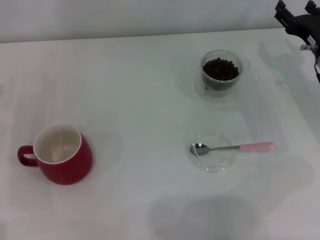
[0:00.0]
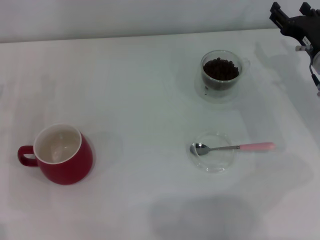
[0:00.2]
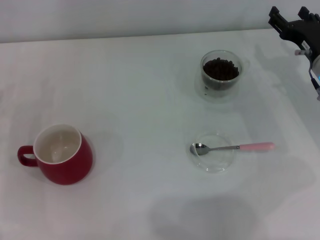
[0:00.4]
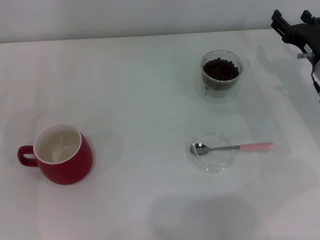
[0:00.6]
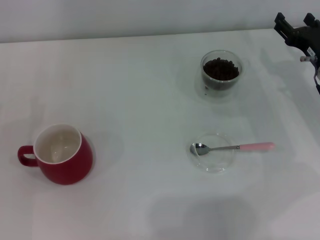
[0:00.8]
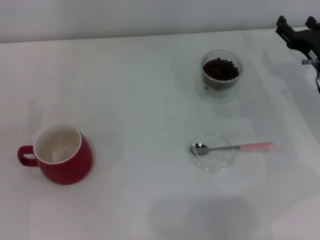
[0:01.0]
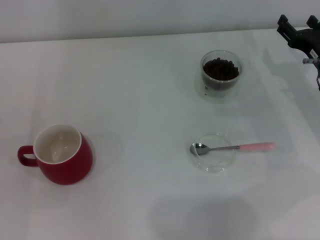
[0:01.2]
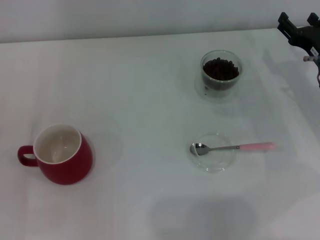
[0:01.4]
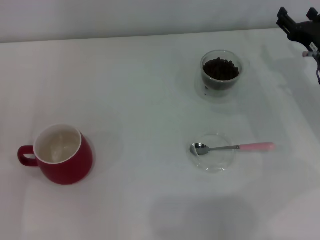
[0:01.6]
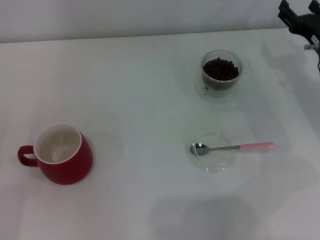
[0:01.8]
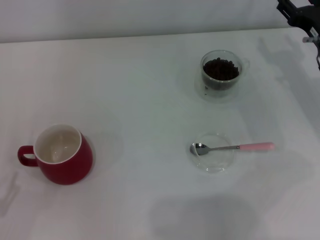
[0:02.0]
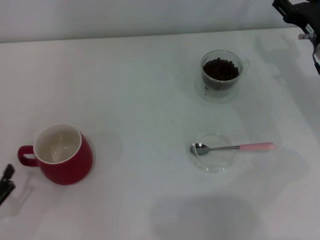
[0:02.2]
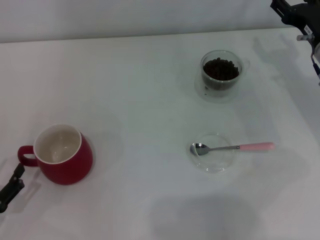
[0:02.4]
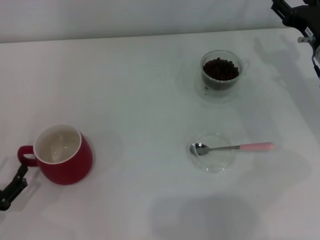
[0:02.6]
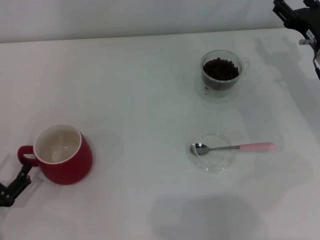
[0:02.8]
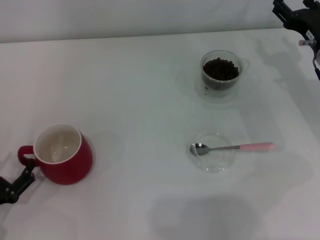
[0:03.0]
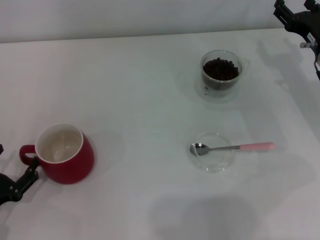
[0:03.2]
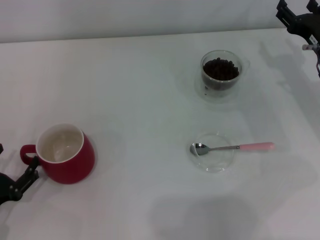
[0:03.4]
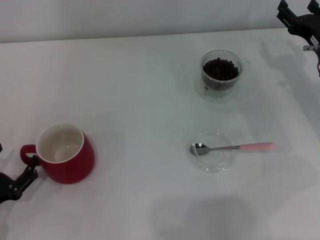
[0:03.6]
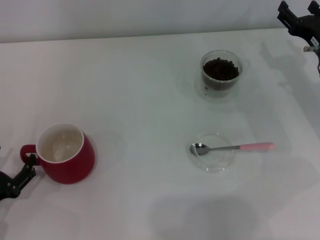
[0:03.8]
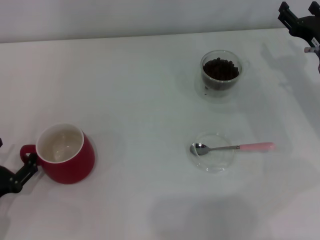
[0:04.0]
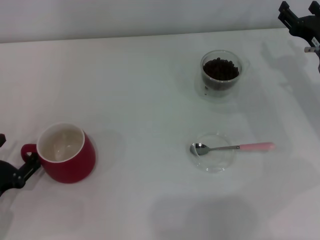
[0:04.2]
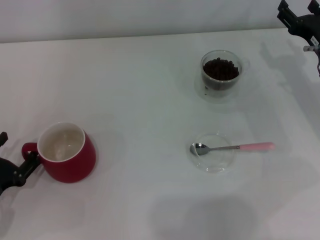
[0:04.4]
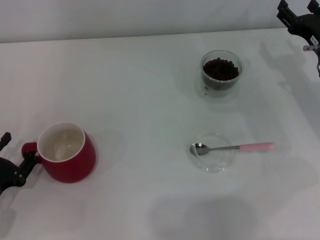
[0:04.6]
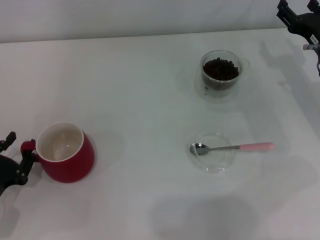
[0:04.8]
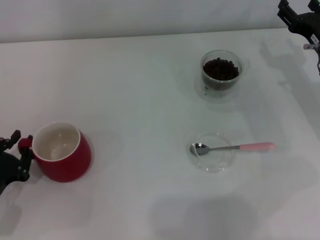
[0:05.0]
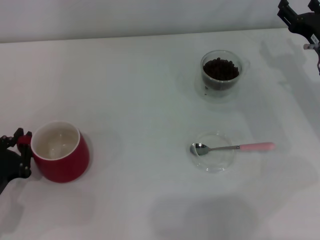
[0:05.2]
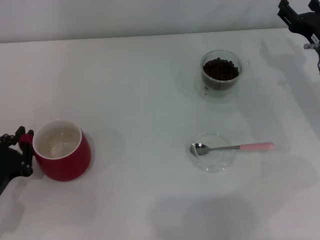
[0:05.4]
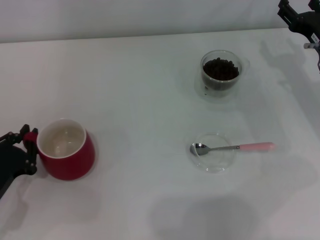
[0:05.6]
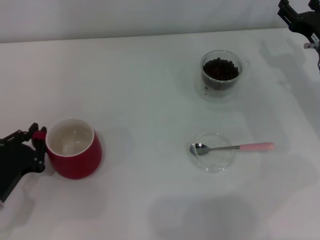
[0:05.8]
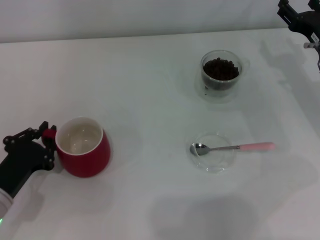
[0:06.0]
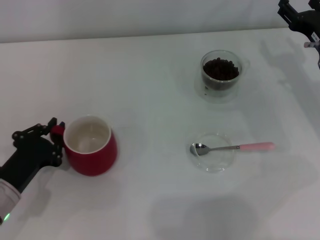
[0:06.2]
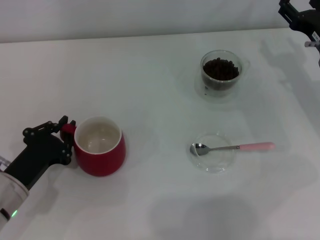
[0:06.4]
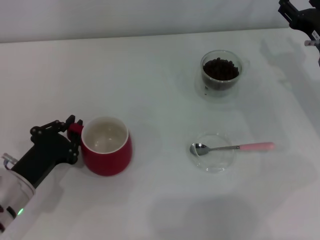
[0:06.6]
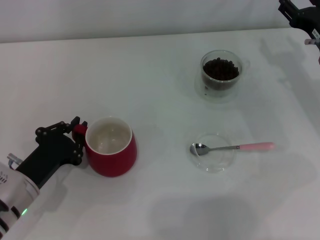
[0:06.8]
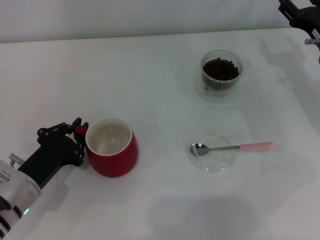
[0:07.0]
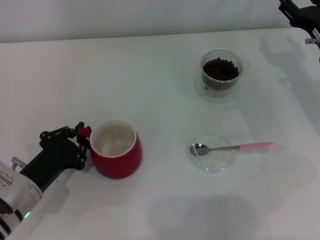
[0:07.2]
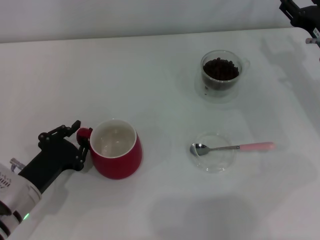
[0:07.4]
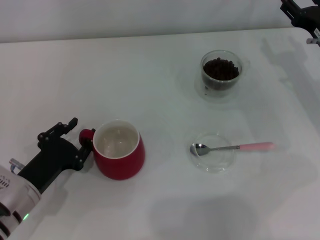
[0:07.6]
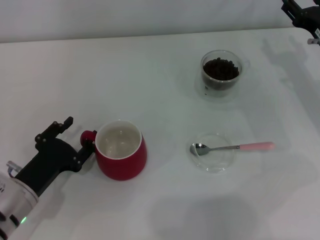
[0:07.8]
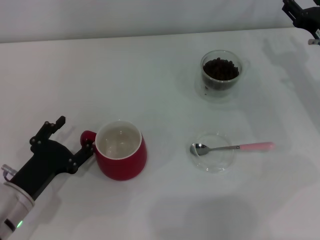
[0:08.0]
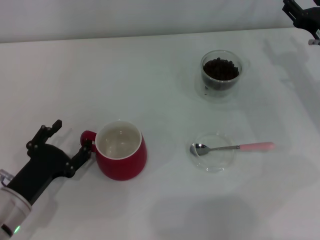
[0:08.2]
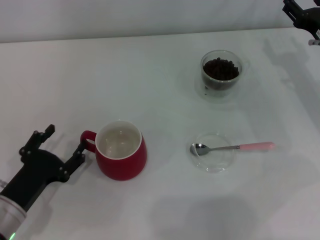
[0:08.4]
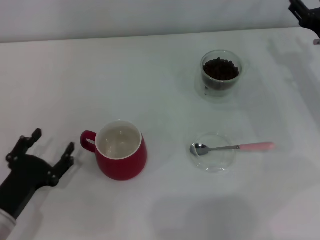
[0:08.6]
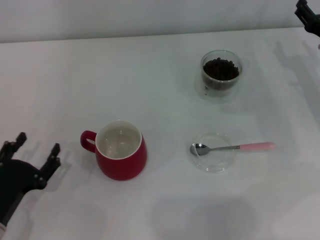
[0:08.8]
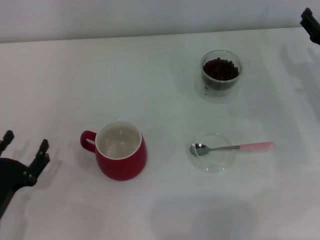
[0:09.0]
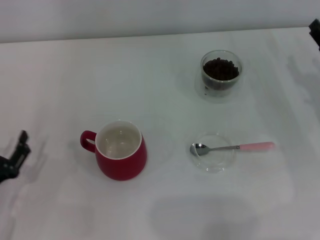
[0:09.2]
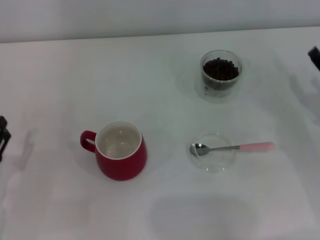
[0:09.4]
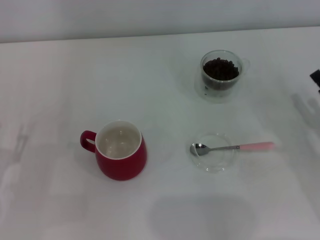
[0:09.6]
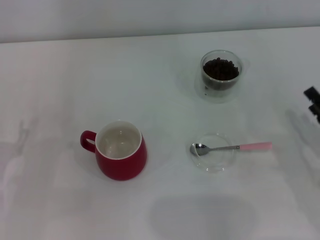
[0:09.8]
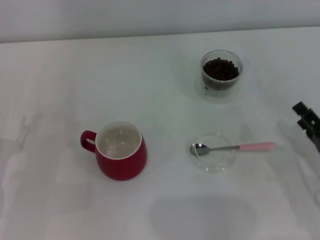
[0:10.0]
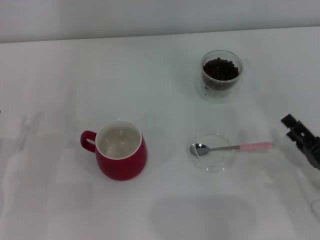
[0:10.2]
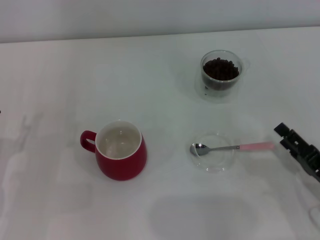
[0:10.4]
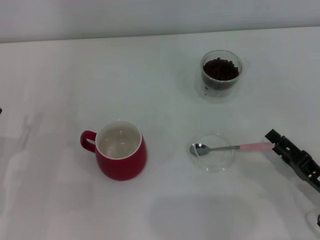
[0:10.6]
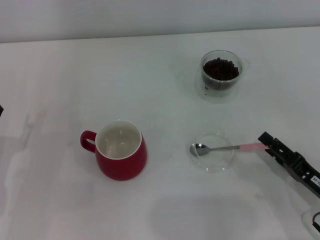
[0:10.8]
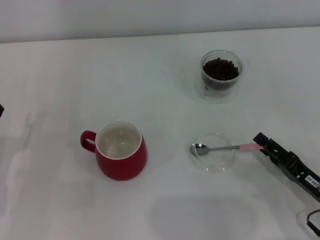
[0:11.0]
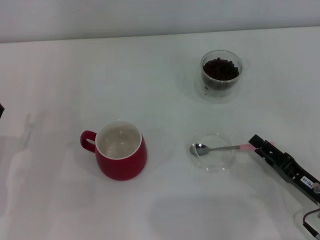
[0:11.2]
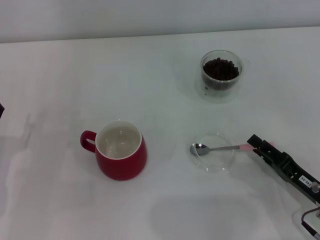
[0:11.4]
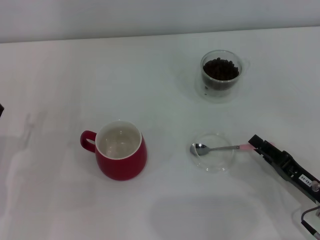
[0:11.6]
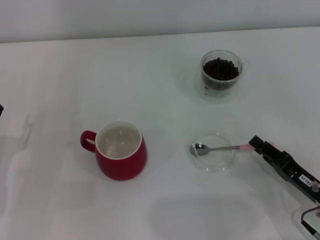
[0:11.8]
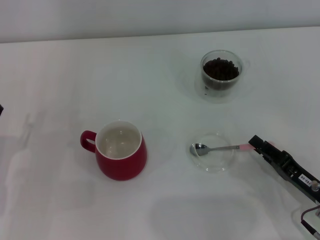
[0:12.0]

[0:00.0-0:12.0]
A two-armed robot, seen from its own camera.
Task of the whole recording: Use a pink spoon to take out the coffee beans from the glass and pour them into the red cup.
Step, 0:00.0 to 0:08.6: Move the cup to the center of view with the left gripper.
0:03.0 to 0:04.4: The grippers move only a little.
0:04.4 to 0:06.0: The left gripper closes.
0:06.0 to 0:07.6: The grippers move only a little.
0:07.6 to 0:09.0: The left gripper moves backward, some 5 cm, and opens its fingers.
0:09.0 to 0:10.4: The right gripper is displaced backward by some 20 cm. Meanwhile the left gripper moves approximately 5 cm.
0:10.4 to 0:12.0: The right gripper closes its fingers.

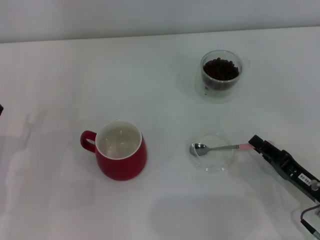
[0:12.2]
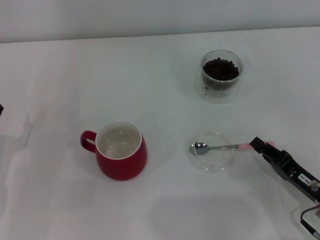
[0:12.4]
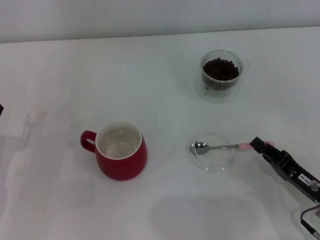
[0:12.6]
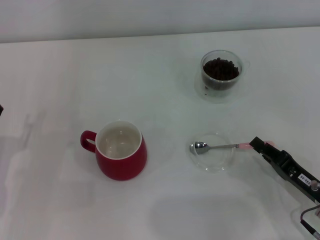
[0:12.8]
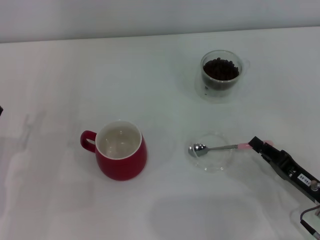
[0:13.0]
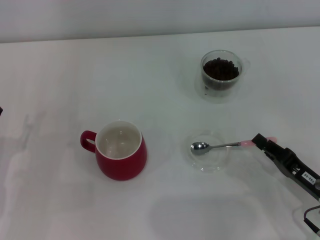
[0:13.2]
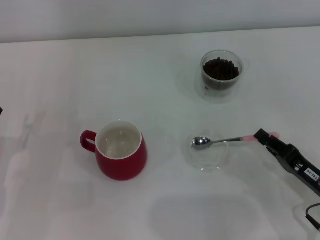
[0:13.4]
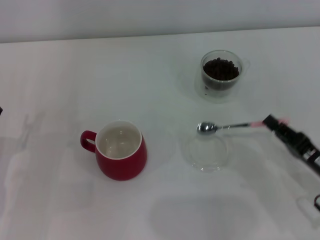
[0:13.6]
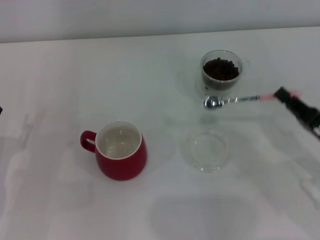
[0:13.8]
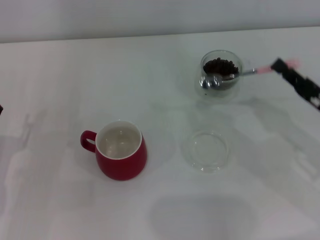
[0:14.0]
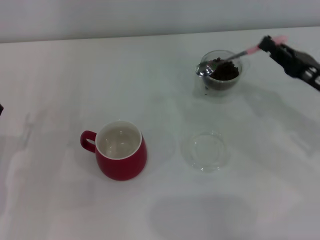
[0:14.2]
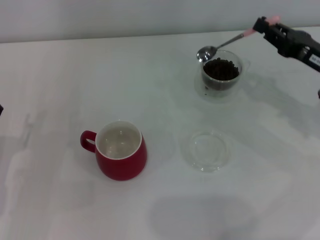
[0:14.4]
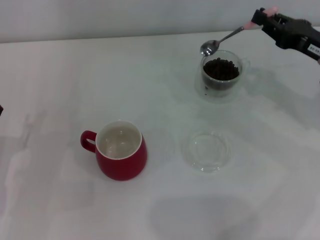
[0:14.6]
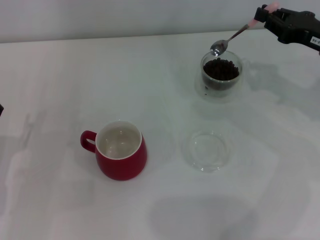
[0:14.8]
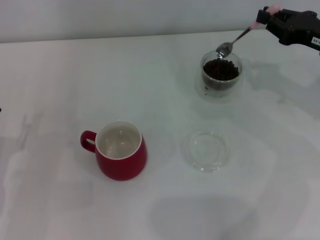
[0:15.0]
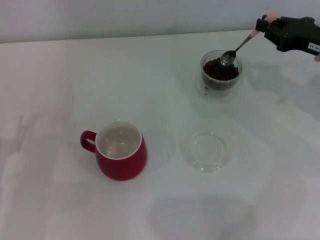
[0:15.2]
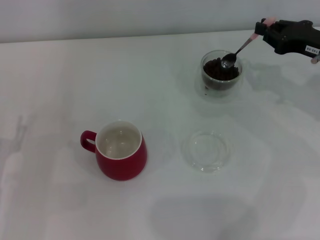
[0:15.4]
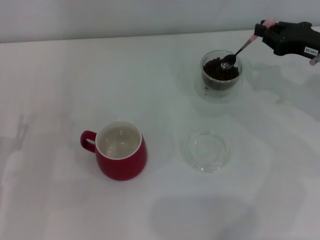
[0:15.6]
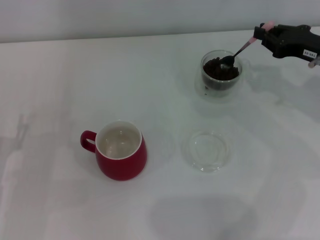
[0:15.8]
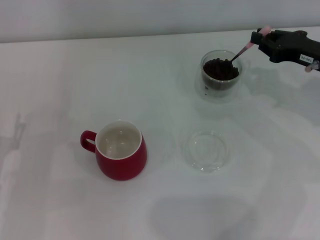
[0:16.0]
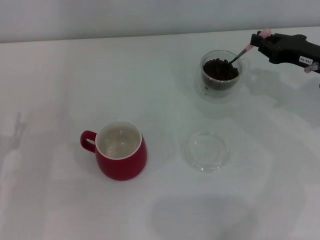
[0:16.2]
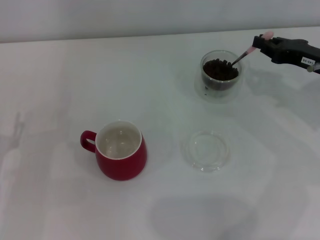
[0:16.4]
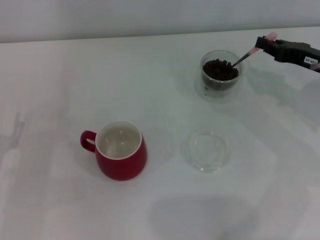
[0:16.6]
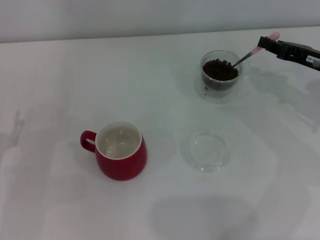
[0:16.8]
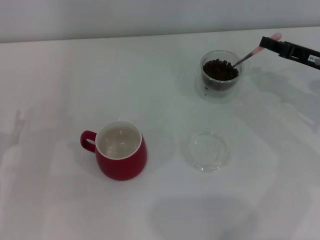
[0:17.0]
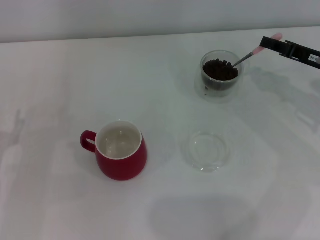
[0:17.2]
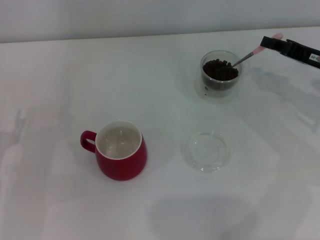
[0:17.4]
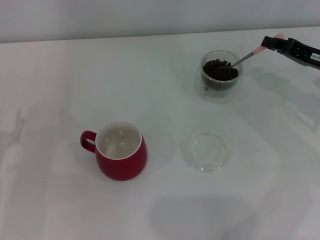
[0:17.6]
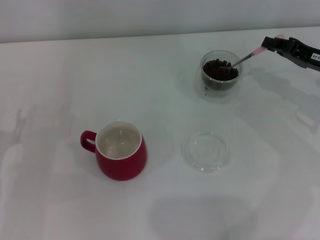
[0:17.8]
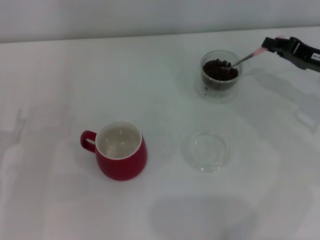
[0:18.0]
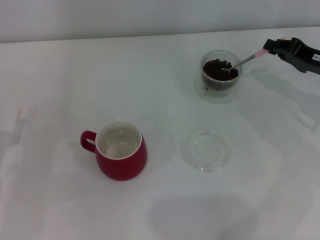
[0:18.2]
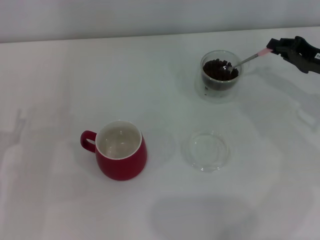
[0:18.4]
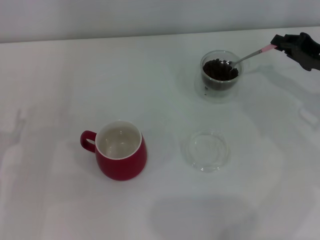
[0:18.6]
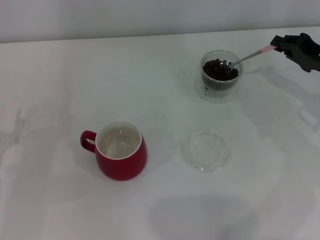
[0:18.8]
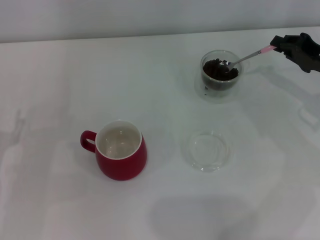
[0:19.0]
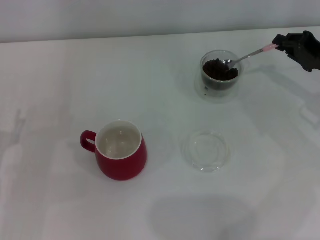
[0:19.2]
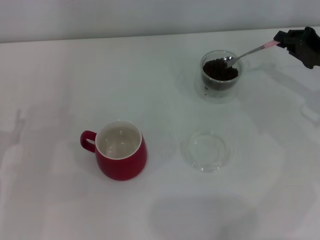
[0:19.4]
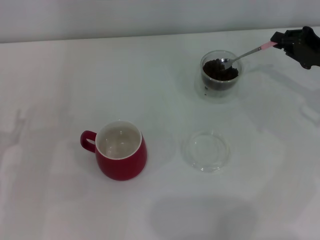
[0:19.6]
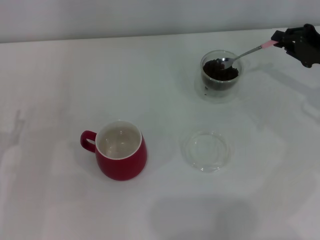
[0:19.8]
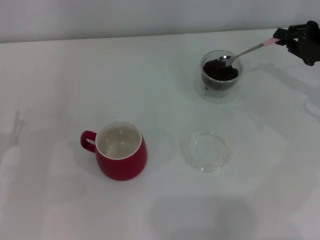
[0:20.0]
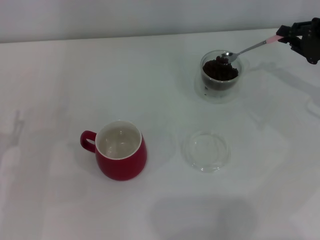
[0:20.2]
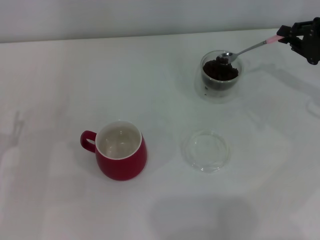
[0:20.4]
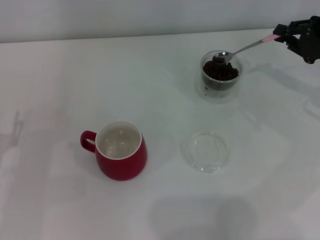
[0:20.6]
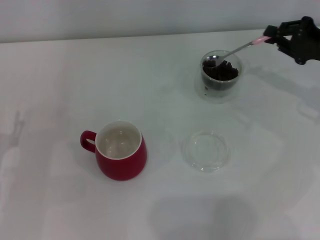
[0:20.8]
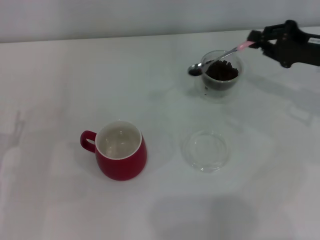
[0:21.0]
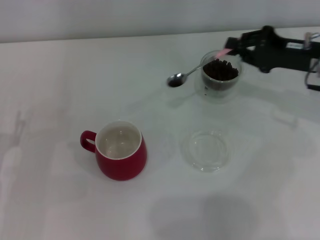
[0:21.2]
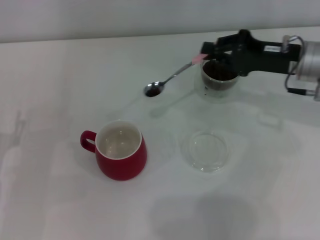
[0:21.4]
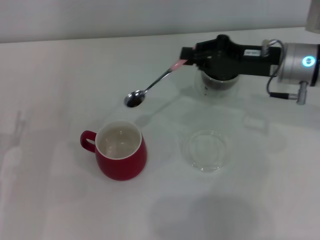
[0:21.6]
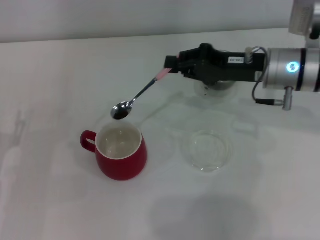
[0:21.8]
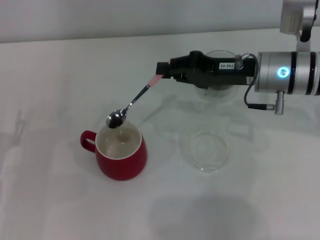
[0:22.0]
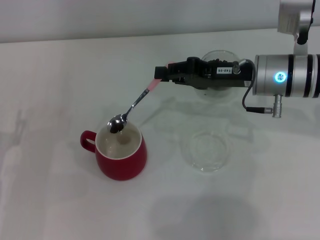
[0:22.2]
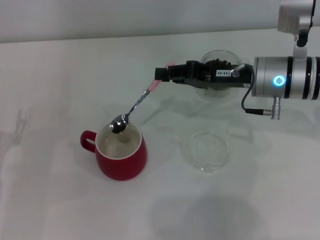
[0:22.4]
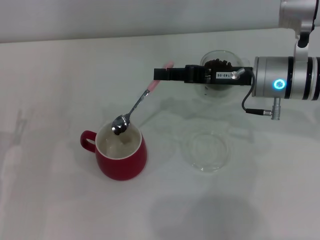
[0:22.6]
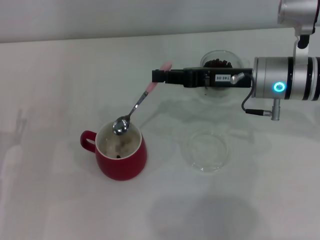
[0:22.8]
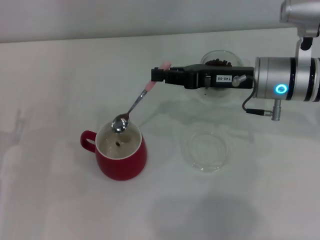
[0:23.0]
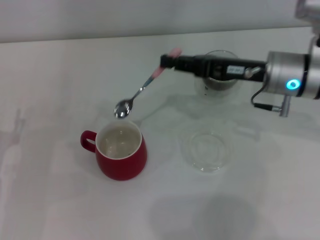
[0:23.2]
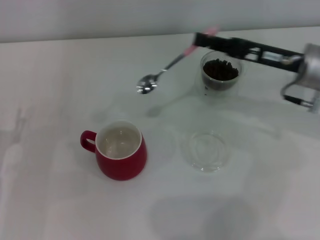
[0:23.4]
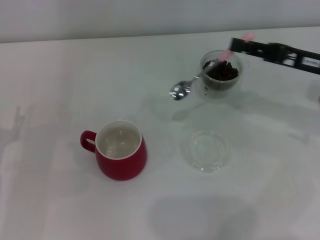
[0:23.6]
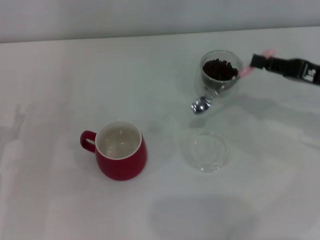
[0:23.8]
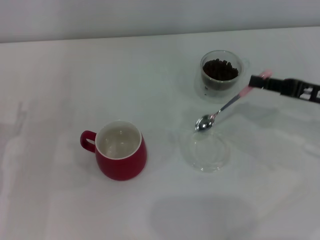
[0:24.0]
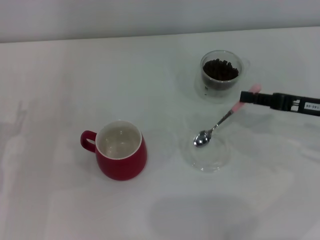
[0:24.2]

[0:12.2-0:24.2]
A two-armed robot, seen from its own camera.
Task of the whole recording: Use a pink spoon to take out the coffee beans from the glass and pour them into the red cup.
Step, 0:13.8 to 0:22.8: Scoop a spoonful of beans into the cup with the right gripper.
0:12.2 to 0:13.8: The right gripper moves some 5 cm.
0:13.8 to 0:15.2: The right gripper travels forward and upward by roughly 20 cm.
0:15.2 to 0:16.6: The grippers stay close to where they were, moving slightly.
0:18.2 to 0:19.8: The grippers make only small movements.
0:19.8 to 0:21.2: The right gripper goes about 5 cm to the left.
0:21.2 to 0:22.6: The right gripper travels to the left by about 10 cm.
0:22.6 to 0:24.2: The right gripper is displaced to the right and backward by roughly 15 cm.
